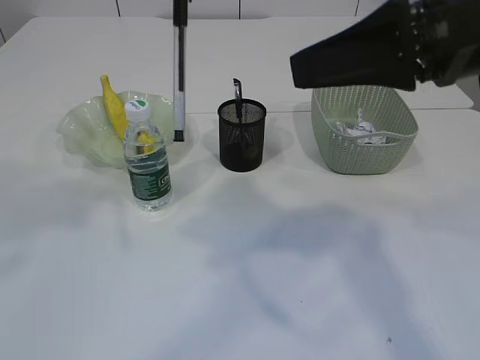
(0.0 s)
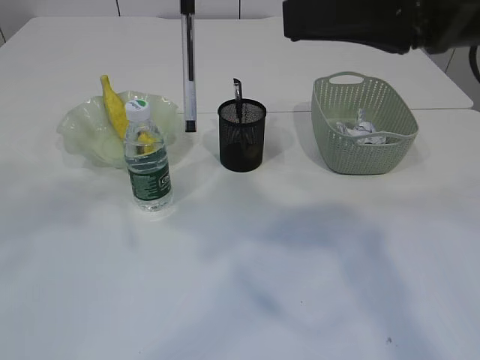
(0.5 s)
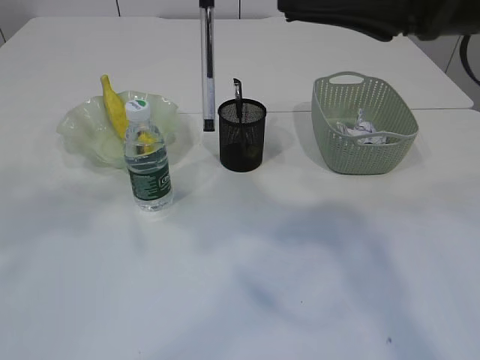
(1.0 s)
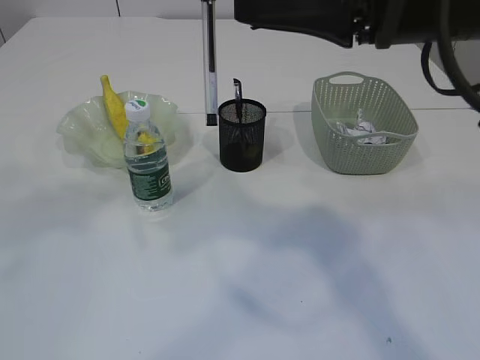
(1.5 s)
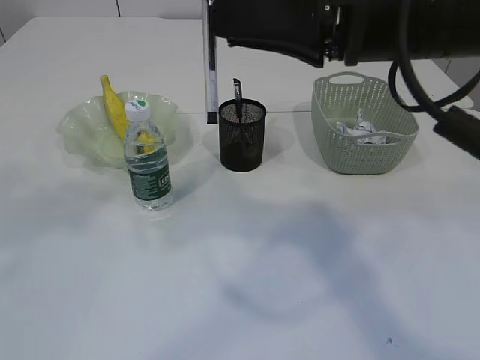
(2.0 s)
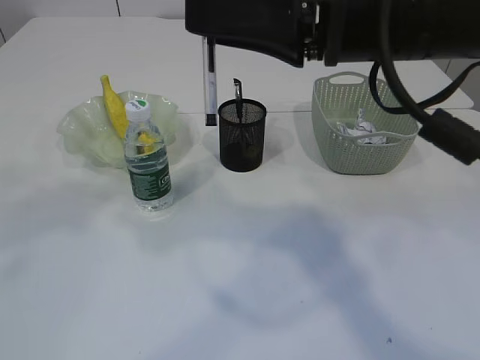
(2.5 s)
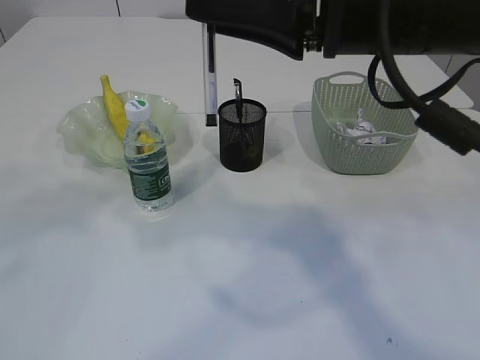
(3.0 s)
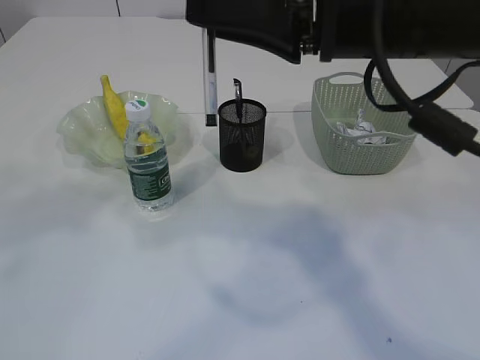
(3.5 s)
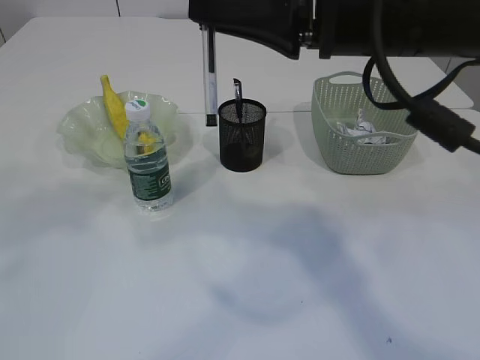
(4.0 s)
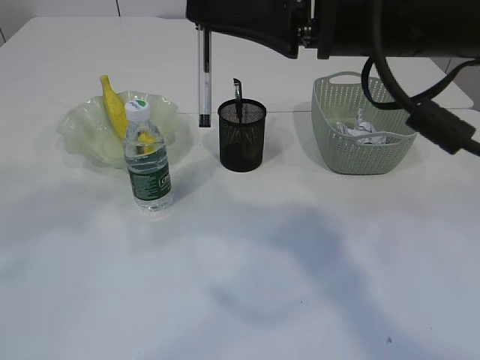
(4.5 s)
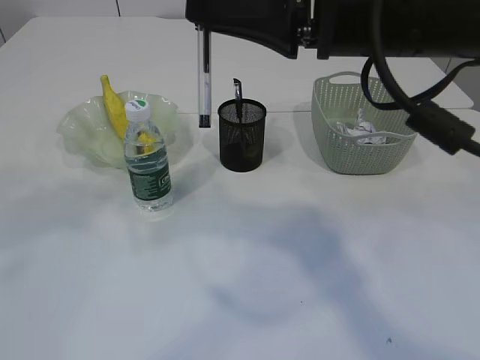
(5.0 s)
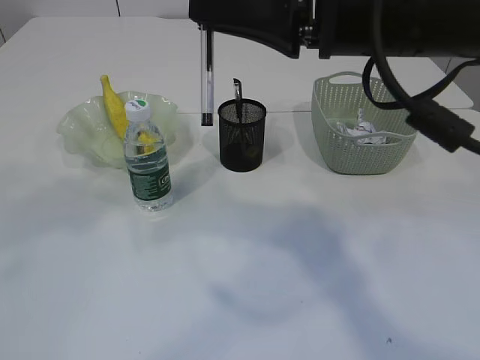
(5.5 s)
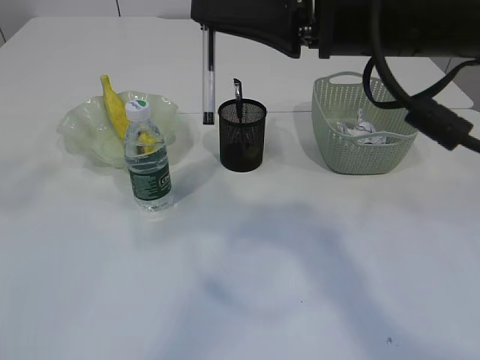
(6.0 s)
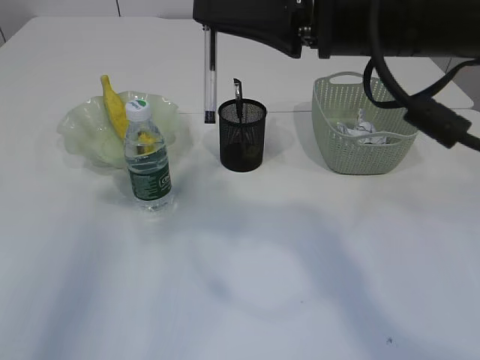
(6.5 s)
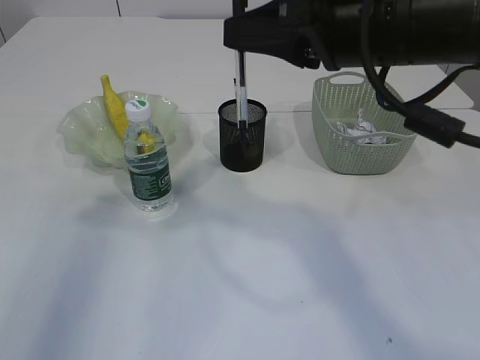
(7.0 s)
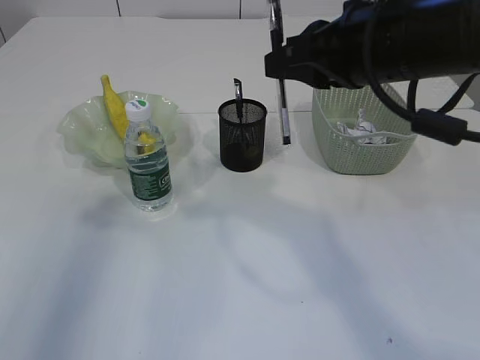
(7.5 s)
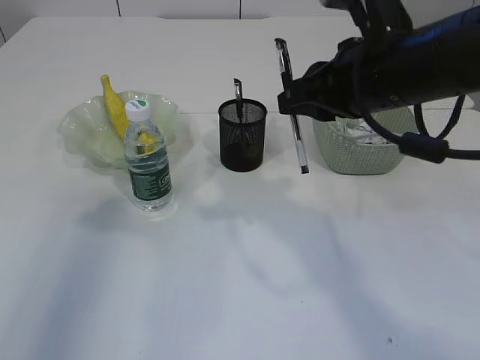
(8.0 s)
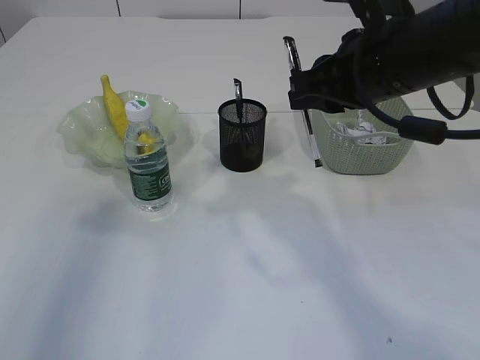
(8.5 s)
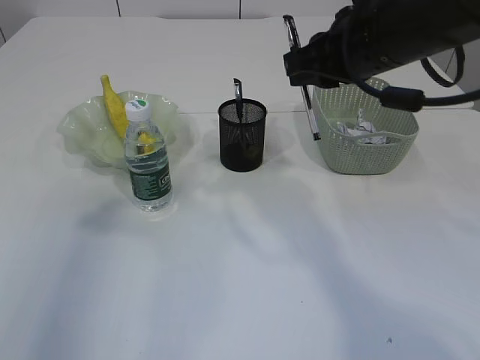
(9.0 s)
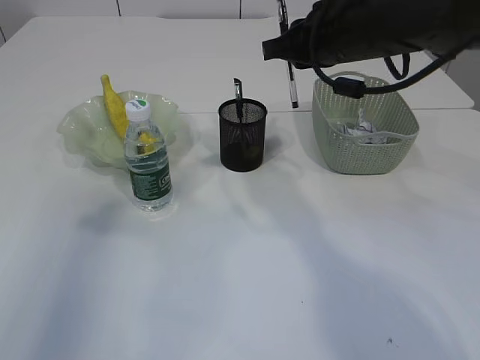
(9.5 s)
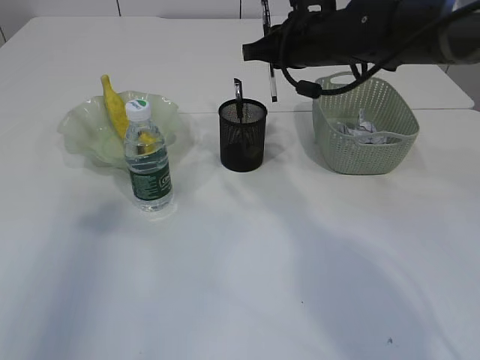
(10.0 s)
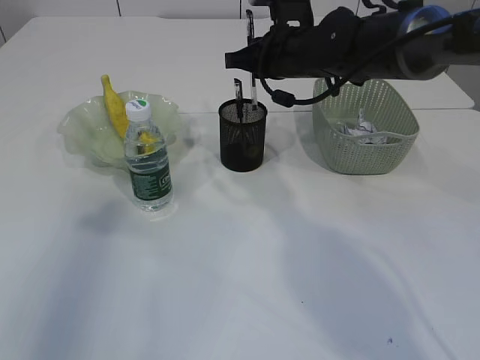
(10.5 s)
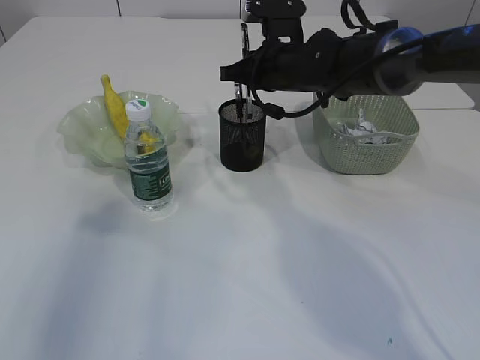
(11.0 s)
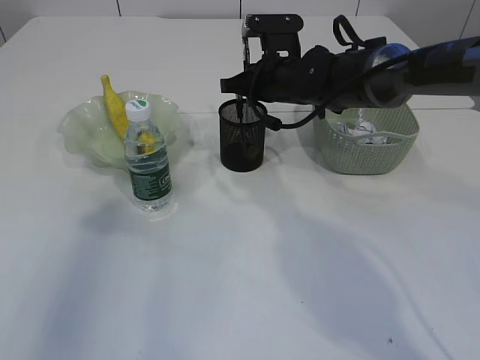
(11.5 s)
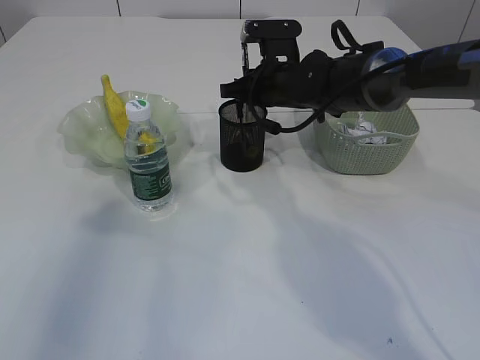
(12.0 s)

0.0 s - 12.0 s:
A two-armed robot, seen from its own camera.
Step, 0.0 s - 6.5 s: transfer the pen to the right arm.
0.0 s - 2.0 s: The grippers stay close to where they were, moving slightly.
2.0 s - 4.0 s: There are only small adjustments of the grippers.
6.0 s - 8.0 s: The right gripper travels downward by some 5 cm; the left gripper goes roughly 15 cm to the left and downward.
8.0 s - 10.0 s: The right gripper shifts some 15 cm forward.
10.0 s - 12.0 s: The right gripper is displaced downward by approximately 10 cm.

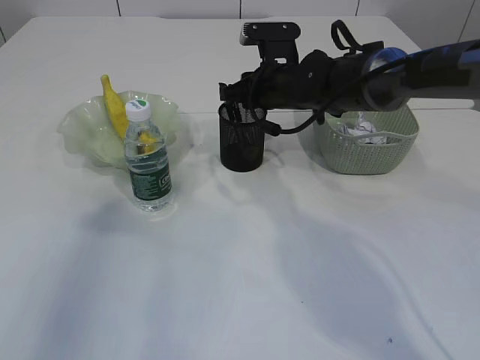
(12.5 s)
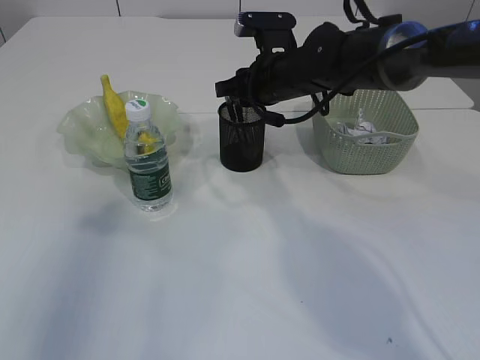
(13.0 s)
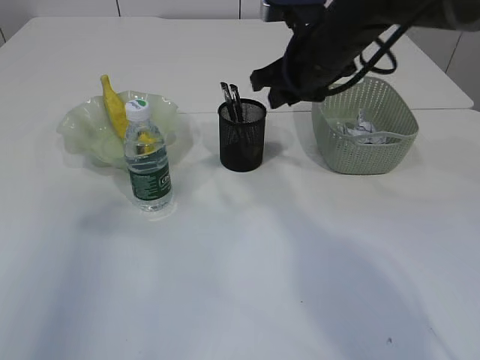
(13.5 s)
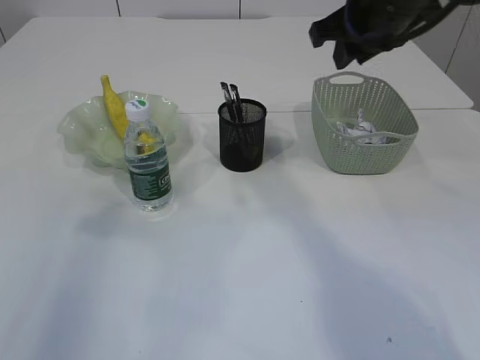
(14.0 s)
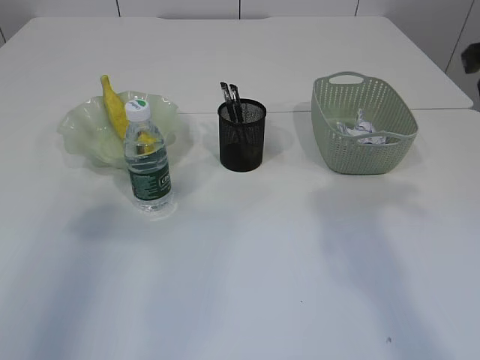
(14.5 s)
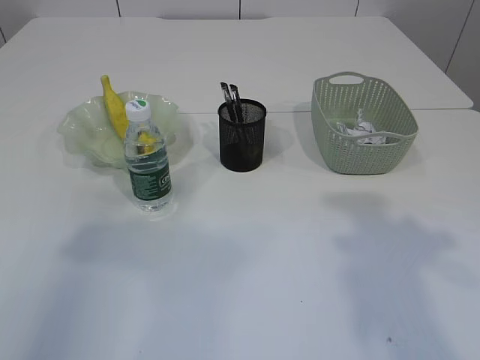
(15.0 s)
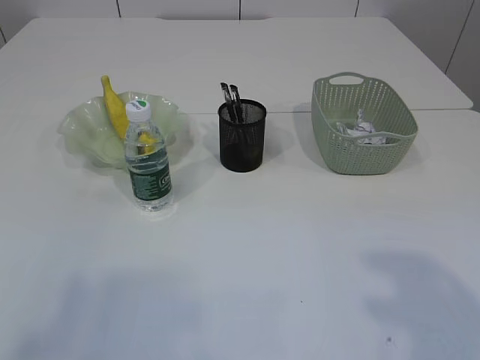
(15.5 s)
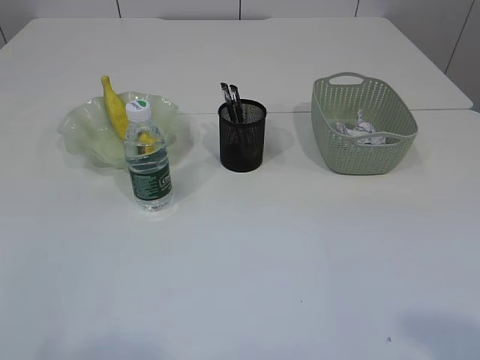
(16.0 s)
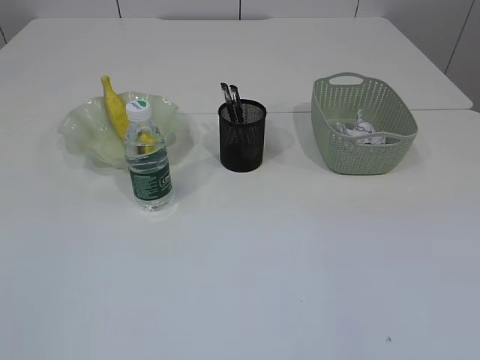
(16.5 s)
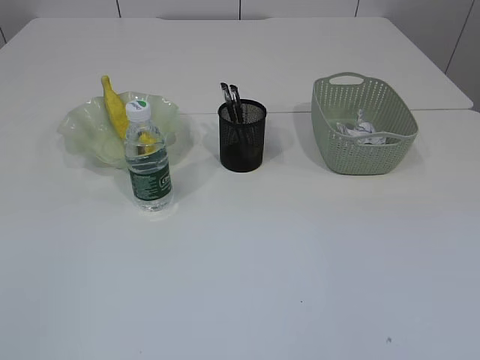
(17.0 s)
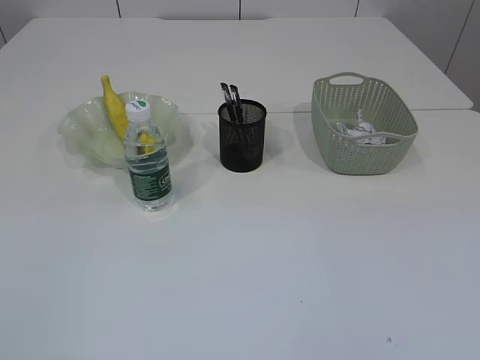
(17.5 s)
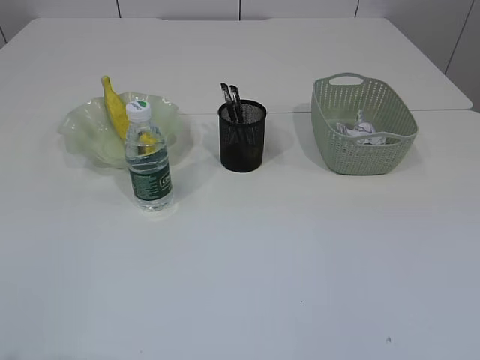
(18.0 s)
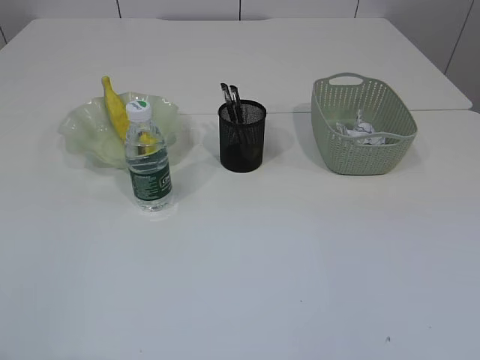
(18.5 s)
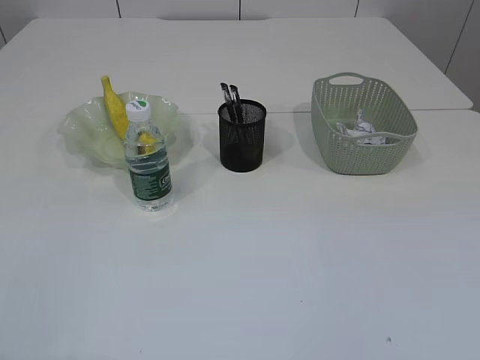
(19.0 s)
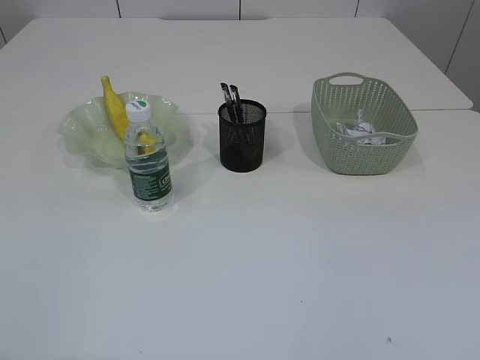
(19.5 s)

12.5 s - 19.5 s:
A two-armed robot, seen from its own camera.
12.5 s - 14.5 s: The right gripper travels to the right, backward and upward by roughly 30 cm.
14.5 s - 16.0 s: The grippers both shift backward by roughly 25 cm.
